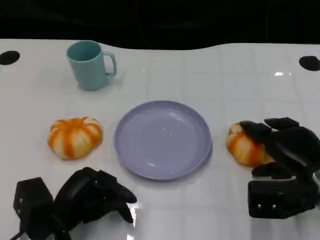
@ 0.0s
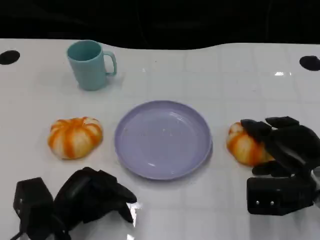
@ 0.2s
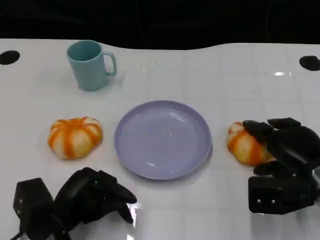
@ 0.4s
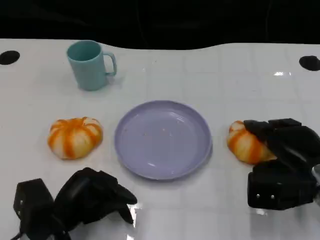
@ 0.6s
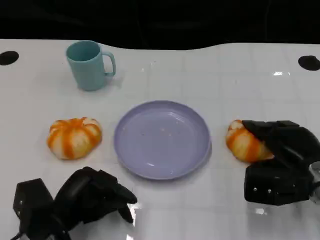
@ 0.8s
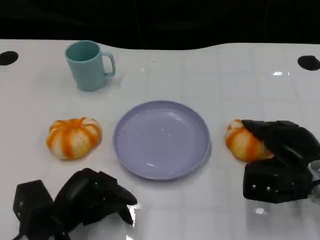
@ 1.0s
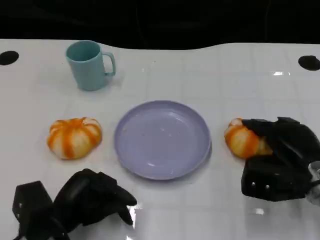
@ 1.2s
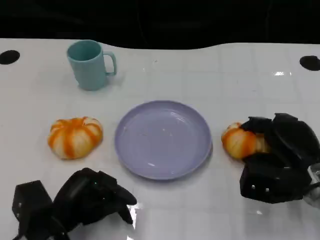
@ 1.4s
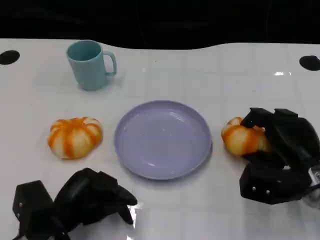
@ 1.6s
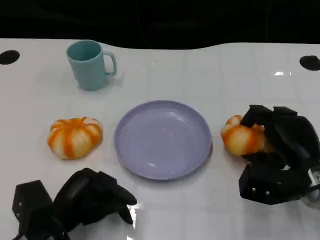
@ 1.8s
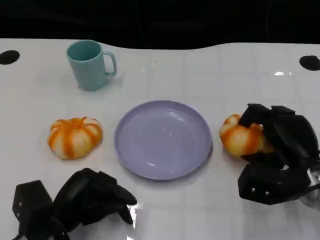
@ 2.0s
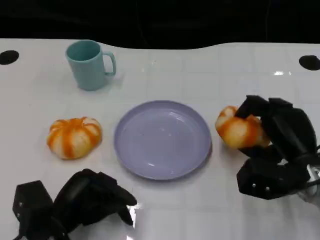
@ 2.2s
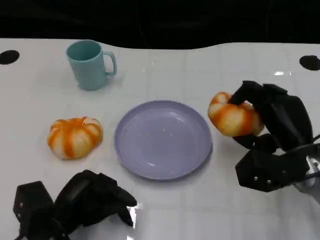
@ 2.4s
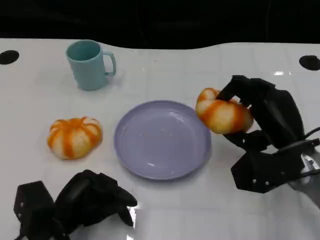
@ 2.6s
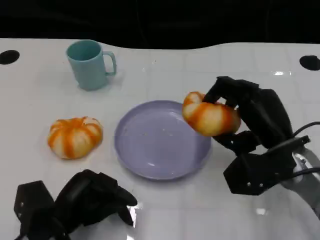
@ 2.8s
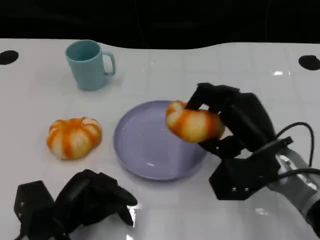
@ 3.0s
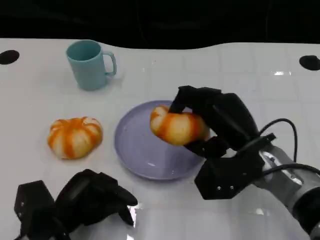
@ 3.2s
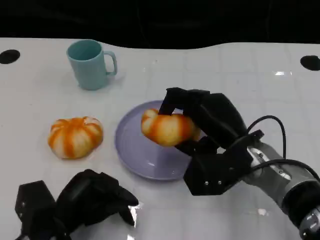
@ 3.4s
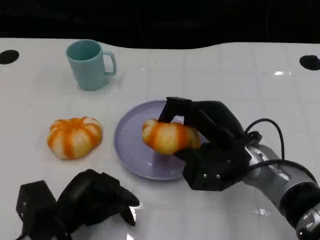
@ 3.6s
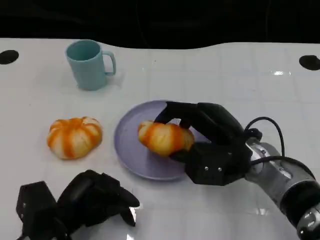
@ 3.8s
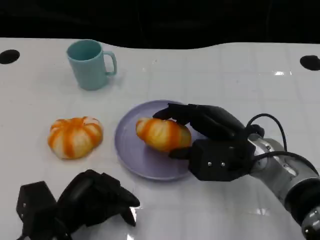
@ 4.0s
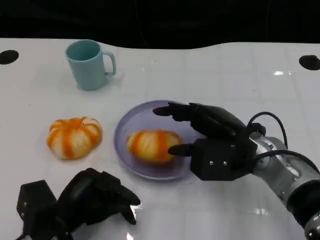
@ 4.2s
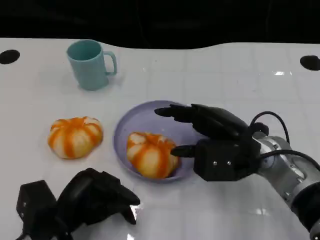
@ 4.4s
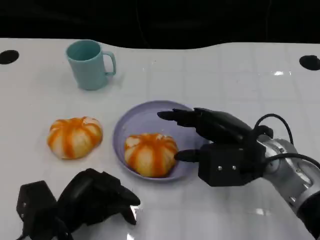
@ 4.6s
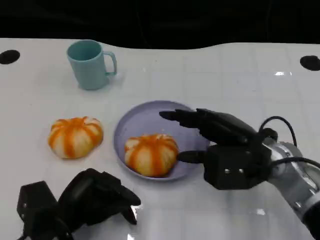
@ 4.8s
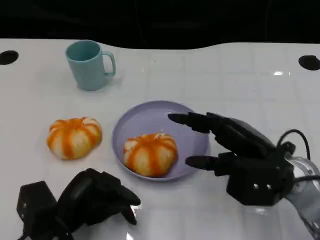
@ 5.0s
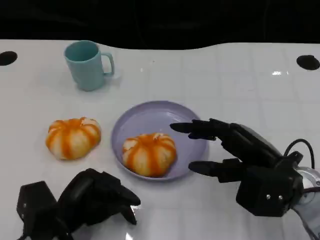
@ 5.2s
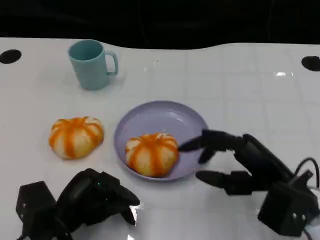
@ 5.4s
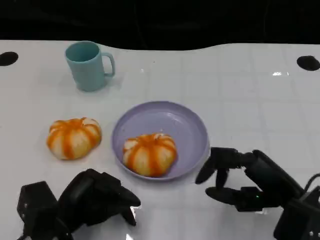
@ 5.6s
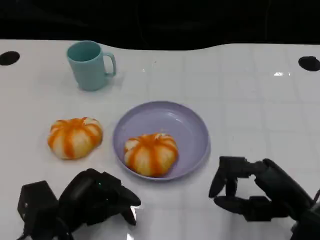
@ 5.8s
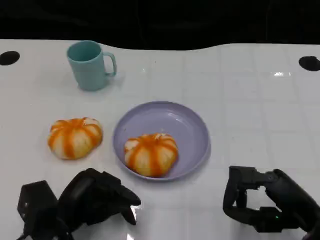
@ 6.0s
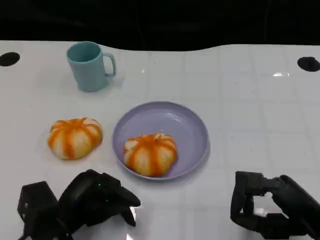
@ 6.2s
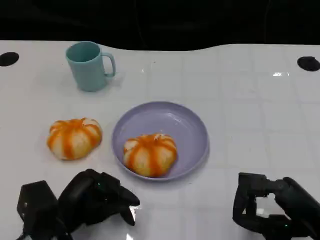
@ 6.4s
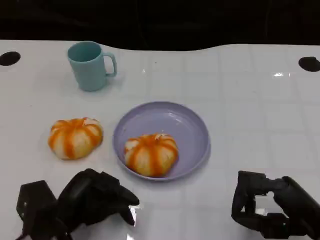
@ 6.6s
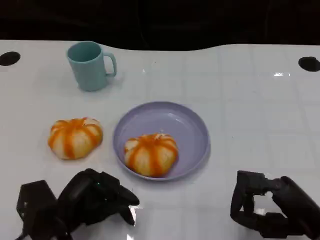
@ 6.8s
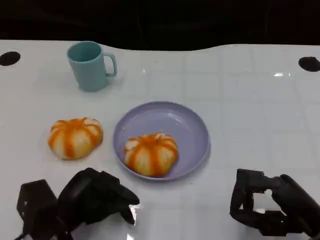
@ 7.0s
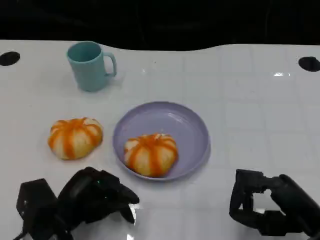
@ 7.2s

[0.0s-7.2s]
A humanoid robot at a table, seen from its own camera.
Task of the whole recording: Grasp the bread from the table and place it into the plate.
0.0s to 1.4s: The hands move only a little.
1.4s to 2.8s: The right hand is displaced to the left by approximately 5 cm.
4.4s to 5.8s: The right hand heads backward and to the right, covering roughly 10 cm.
5.8s to 7.2s: The hands make only small movements.

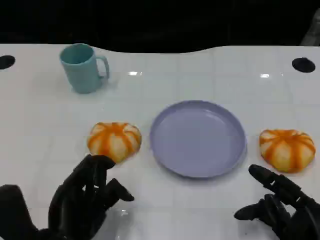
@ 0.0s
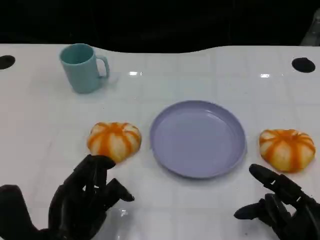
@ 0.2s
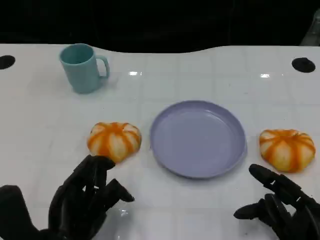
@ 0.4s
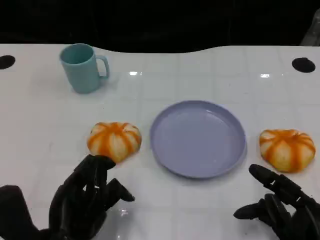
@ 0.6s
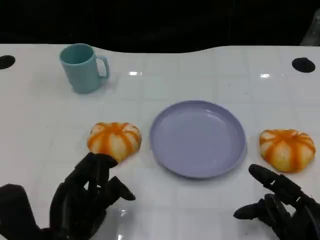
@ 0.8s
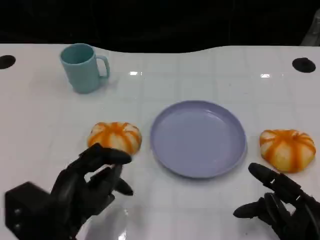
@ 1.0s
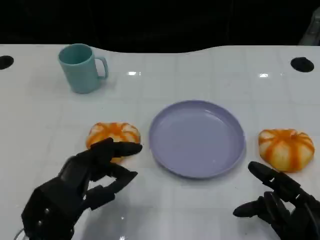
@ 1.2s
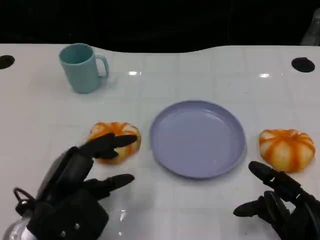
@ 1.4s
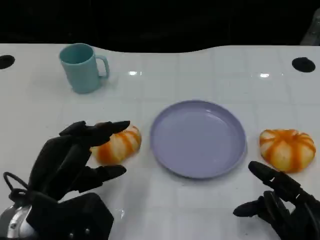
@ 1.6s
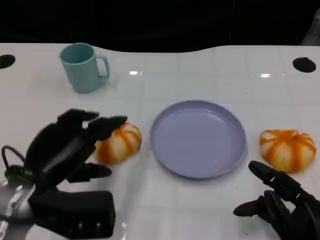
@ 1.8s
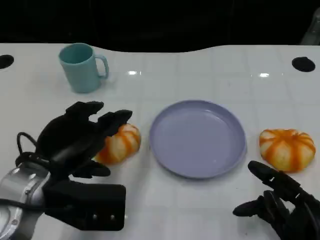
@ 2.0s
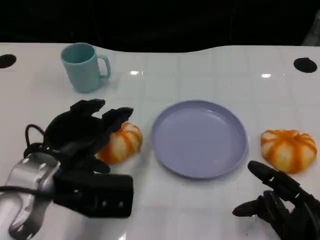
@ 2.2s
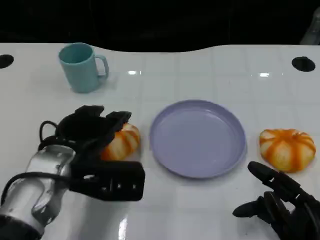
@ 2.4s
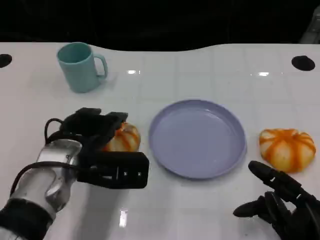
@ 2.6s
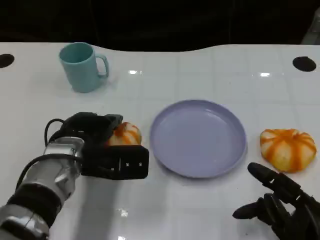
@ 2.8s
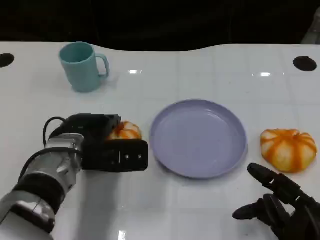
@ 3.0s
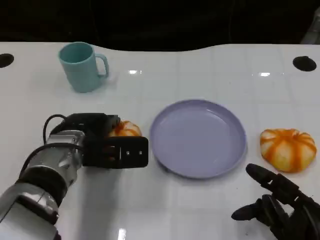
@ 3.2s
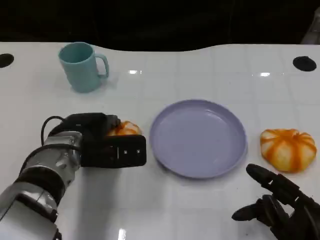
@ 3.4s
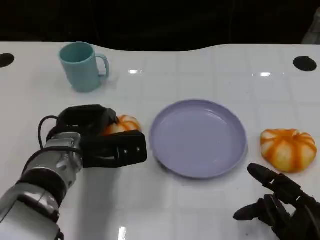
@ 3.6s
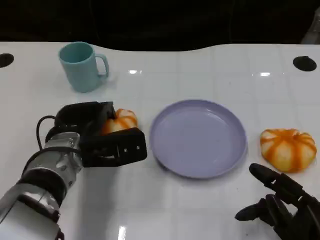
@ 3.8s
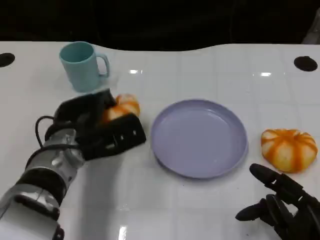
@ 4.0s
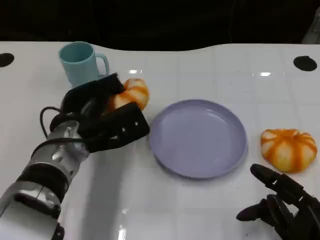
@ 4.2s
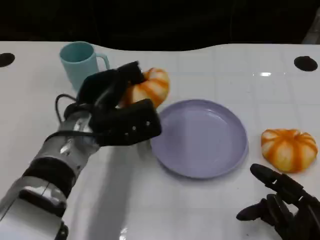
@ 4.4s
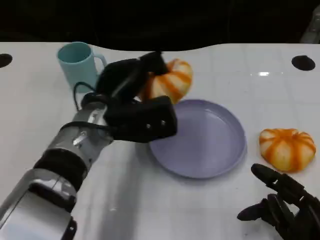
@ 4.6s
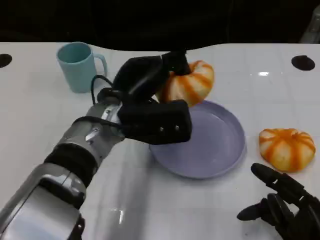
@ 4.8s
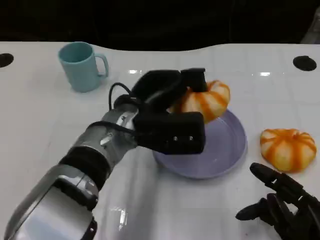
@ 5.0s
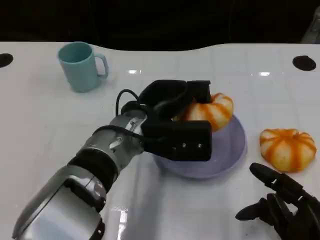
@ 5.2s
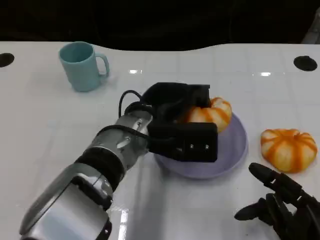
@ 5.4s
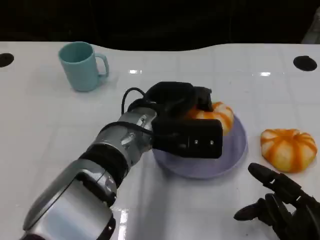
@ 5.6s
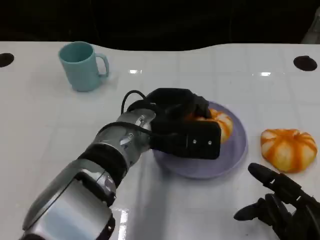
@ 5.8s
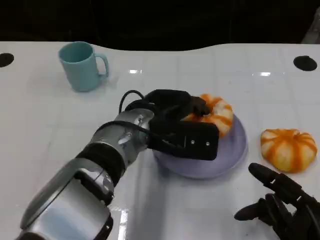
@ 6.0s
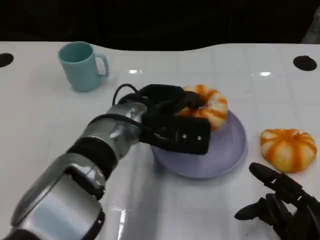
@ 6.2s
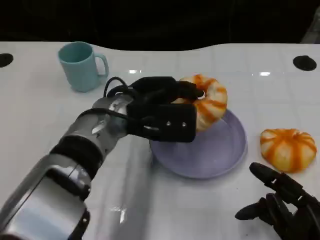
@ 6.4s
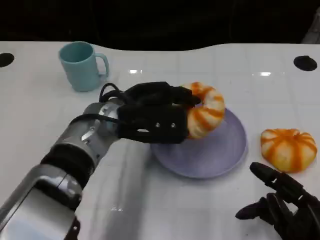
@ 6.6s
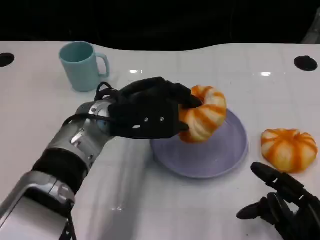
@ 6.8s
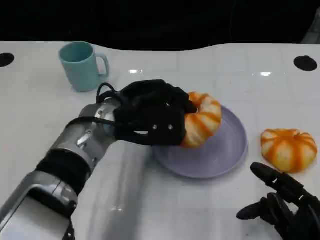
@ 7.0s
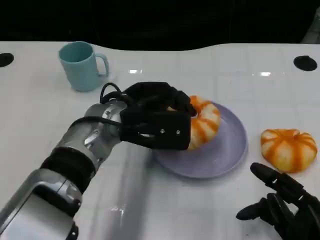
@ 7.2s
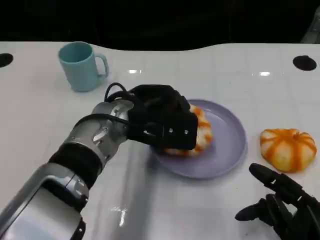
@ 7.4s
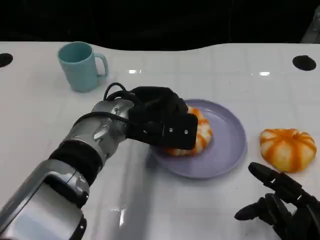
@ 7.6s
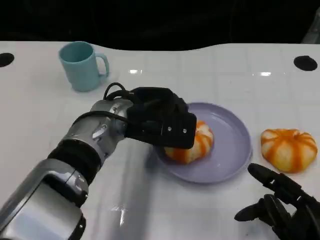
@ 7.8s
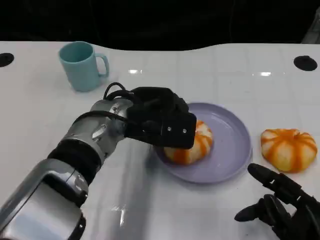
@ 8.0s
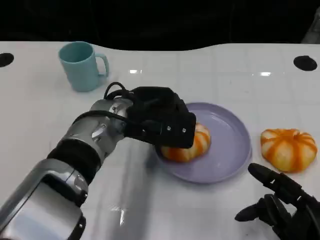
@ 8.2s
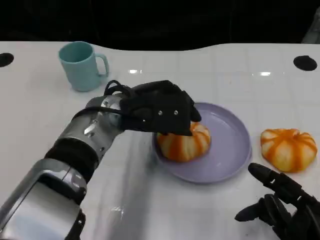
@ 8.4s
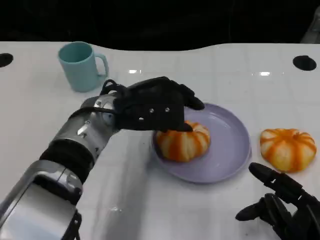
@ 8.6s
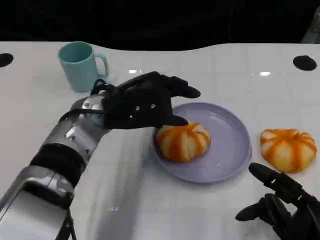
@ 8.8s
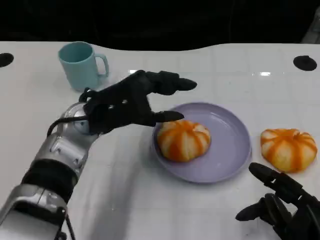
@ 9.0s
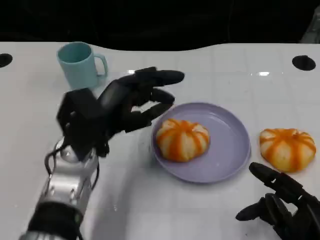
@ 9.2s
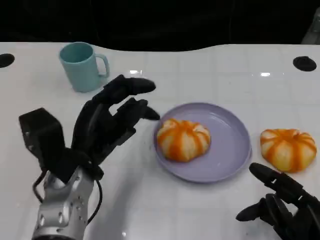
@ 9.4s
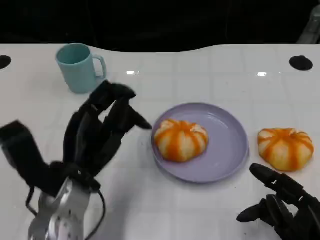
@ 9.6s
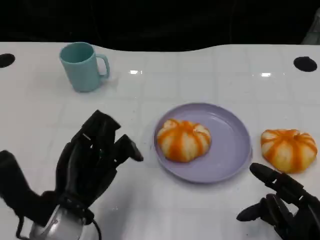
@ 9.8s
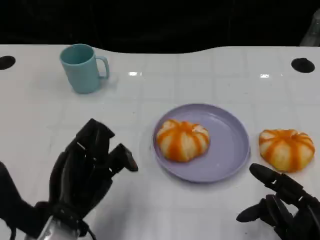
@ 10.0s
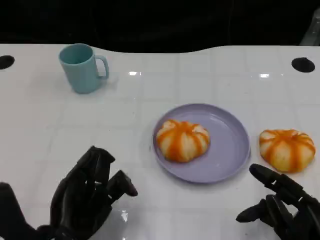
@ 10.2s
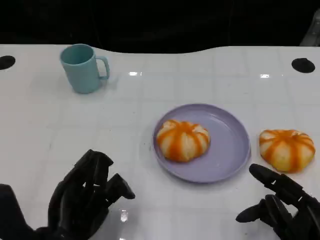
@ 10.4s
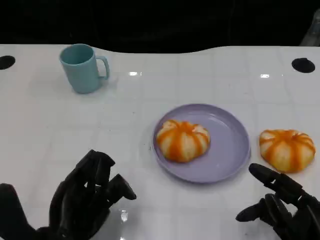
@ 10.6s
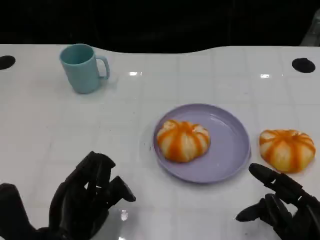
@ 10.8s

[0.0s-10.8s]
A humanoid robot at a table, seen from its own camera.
Task of the whole recording: Grasp the bread from the table and place it into the plate.
0.0s to 1.6s: The left hand changes place by about 5 cm.
1.6s to 3.0s: The left hand shifts approximately 10 cm forward.
3.0s to 4.6s: The left hand shifts approximately 5 cm to the right.
7.8s to 9.2s: The left hand goes approximately 5 cm to the left.
9.2s to 10.8s: The left hand moves backward, roughly 10 cm.

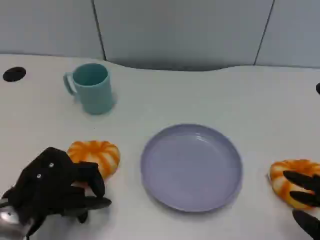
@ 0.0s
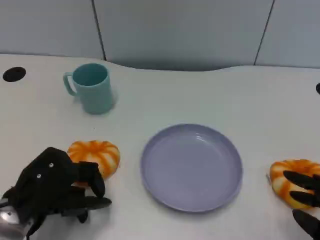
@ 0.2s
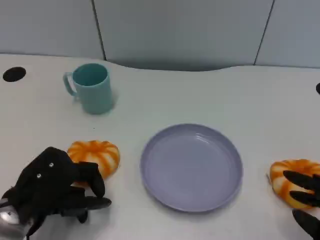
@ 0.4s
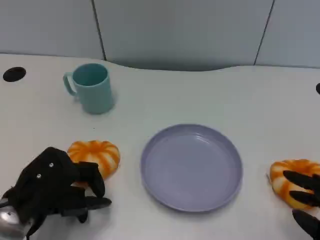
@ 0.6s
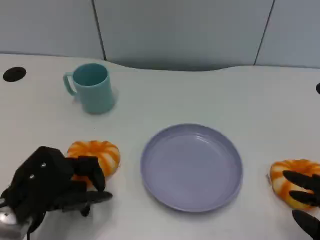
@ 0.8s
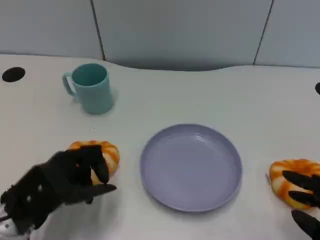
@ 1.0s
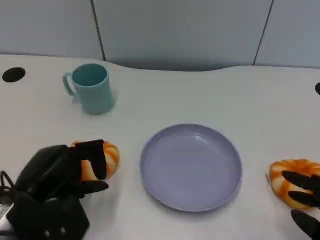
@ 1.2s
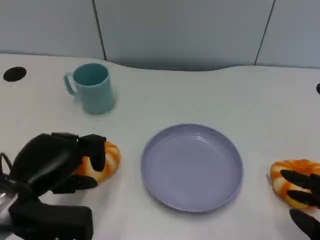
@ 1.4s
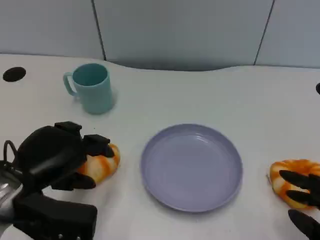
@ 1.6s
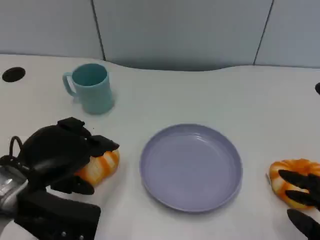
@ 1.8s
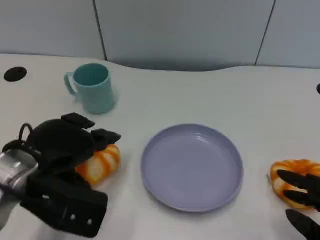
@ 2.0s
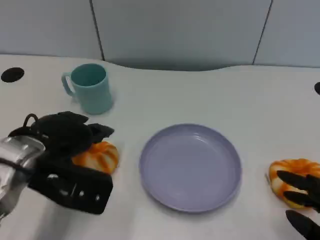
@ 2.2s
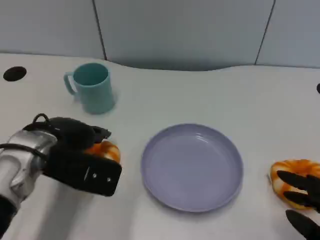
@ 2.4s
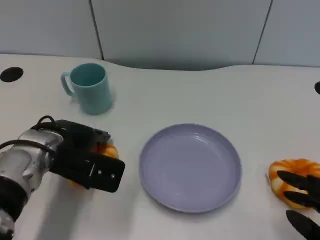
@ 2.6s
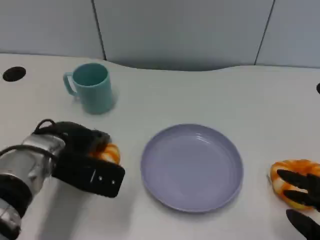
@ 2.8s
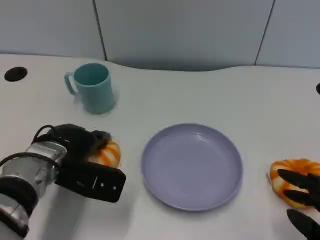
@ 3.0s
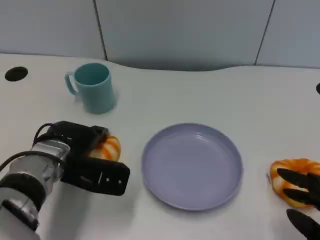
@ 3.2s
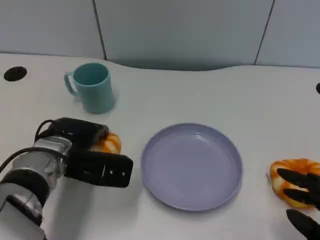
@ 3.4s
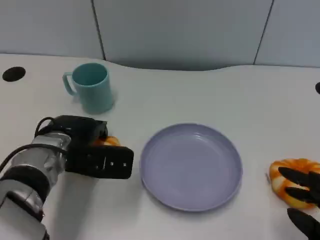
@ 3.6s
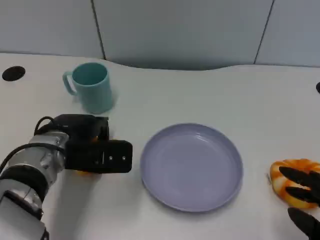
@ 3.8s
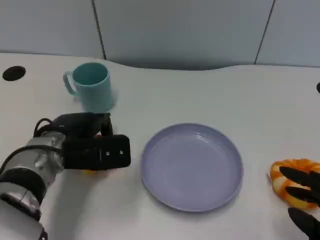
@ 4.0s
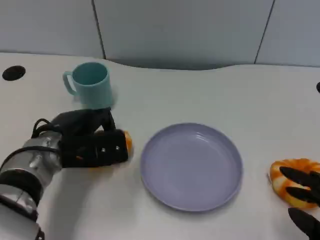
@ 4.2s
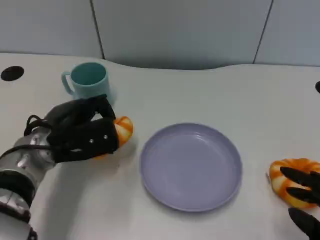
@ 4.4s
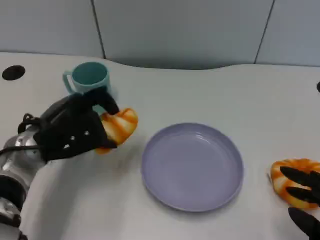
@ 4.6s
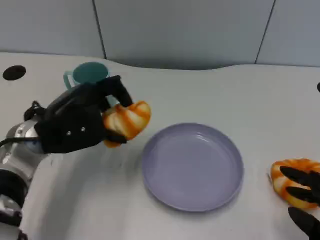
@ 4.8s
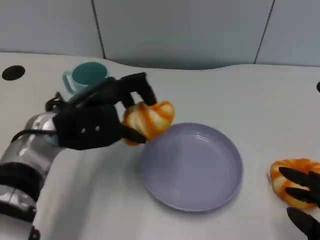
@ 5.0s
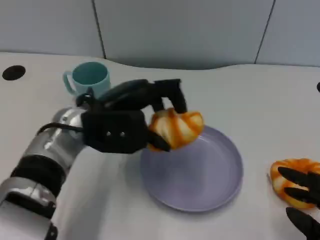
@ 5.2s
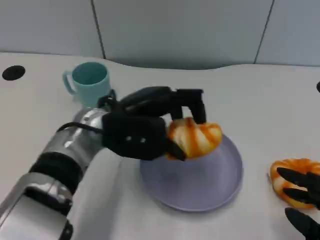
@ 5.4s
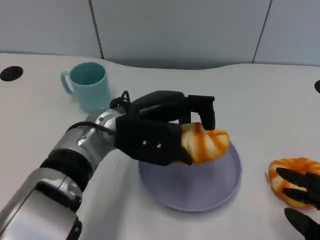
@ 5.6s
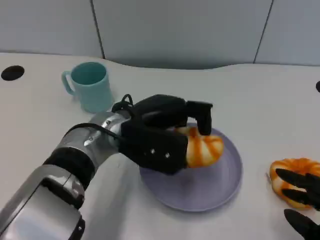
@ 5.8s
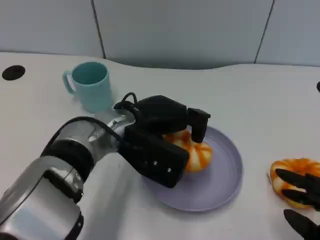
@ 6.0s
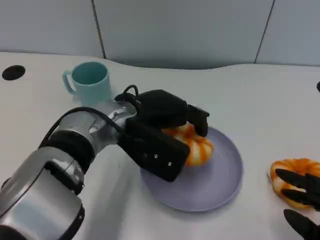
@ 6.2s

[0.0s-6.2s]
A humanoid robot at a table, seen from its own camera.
Task of the whole recording: Grasp the bread from the table and place it into the plate.
0.0s to 1.6s: The left hand moves upward, some 5 cm.
1.6s to 3.2s: The left hand travels forward by some 10 cm.
4.6s to 6.2s: The left hand is displaced to the right by some 10 cm.
